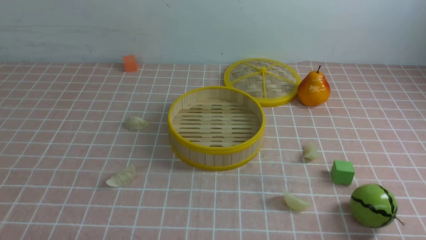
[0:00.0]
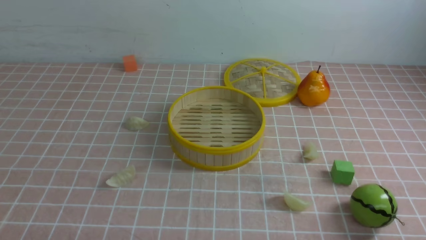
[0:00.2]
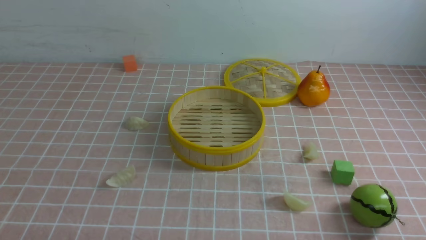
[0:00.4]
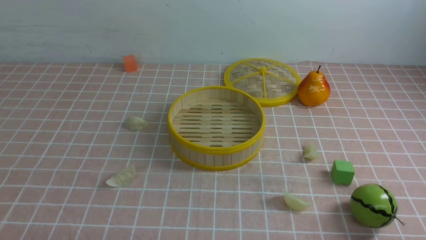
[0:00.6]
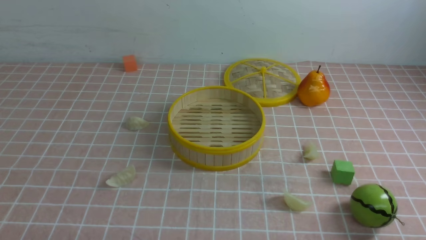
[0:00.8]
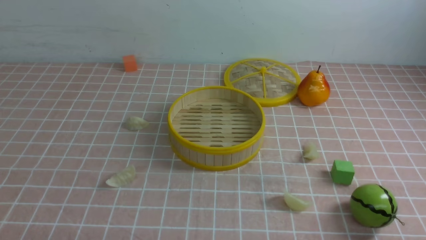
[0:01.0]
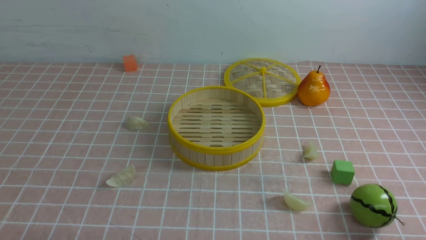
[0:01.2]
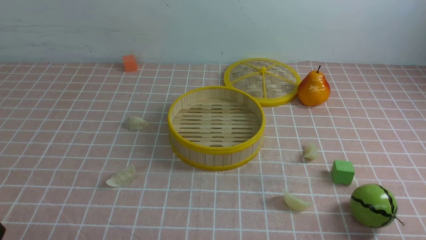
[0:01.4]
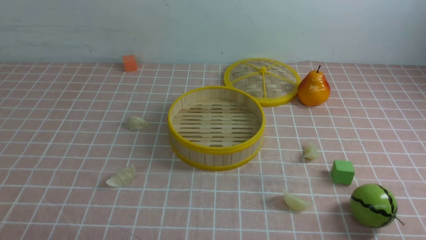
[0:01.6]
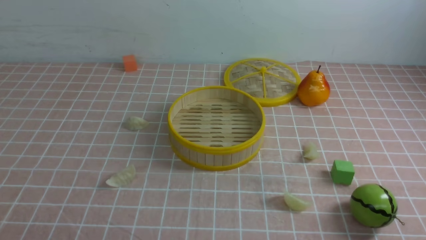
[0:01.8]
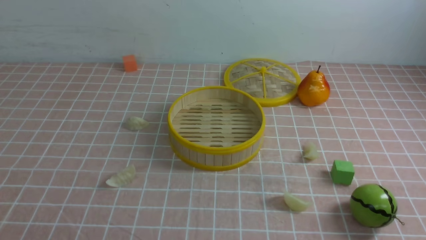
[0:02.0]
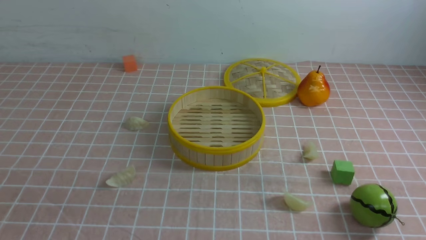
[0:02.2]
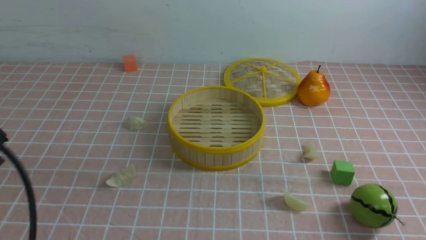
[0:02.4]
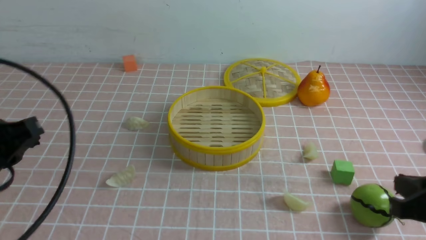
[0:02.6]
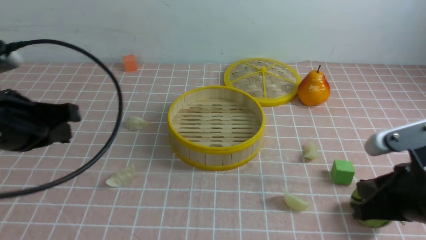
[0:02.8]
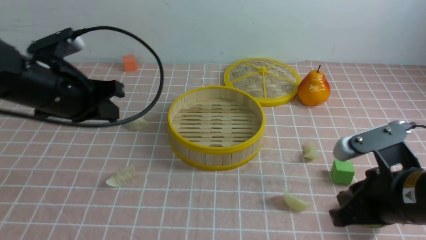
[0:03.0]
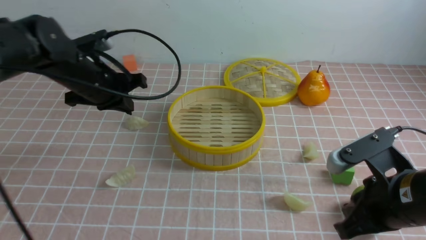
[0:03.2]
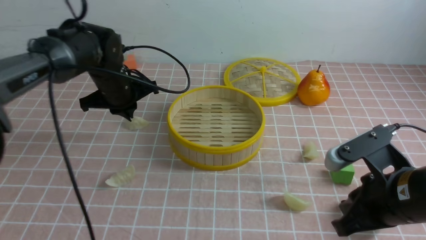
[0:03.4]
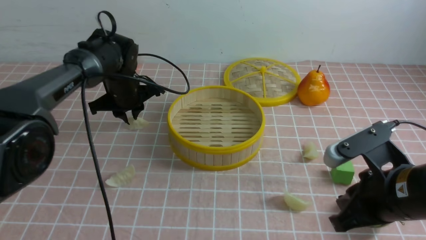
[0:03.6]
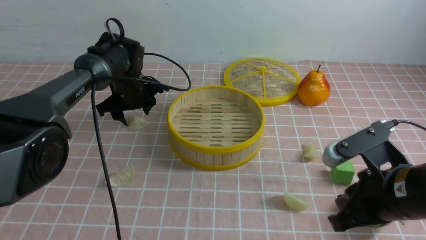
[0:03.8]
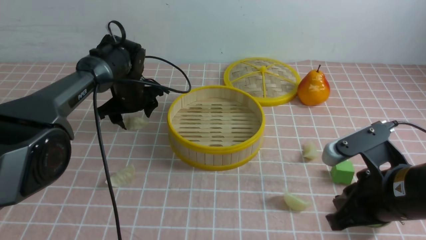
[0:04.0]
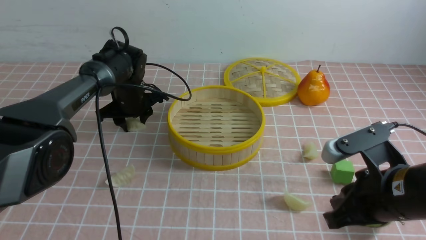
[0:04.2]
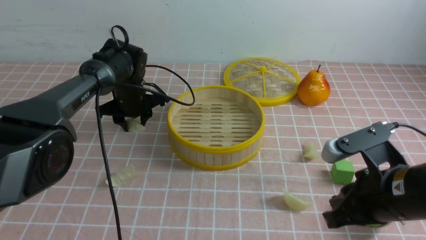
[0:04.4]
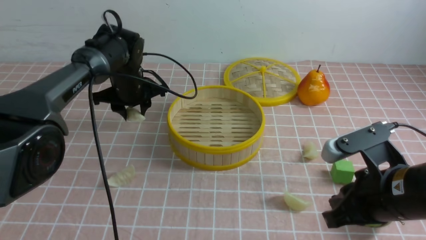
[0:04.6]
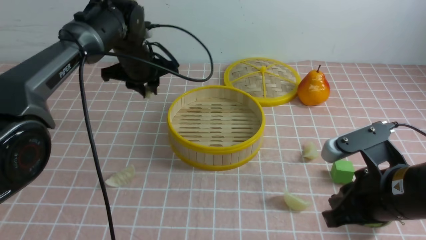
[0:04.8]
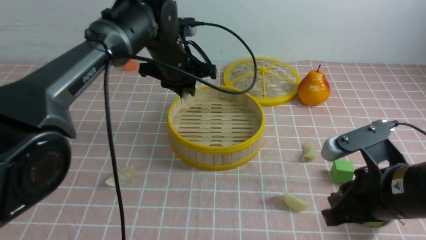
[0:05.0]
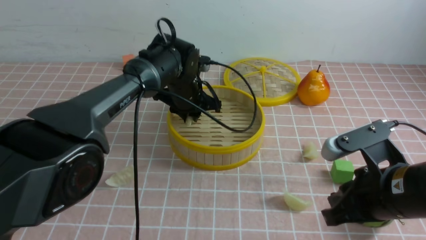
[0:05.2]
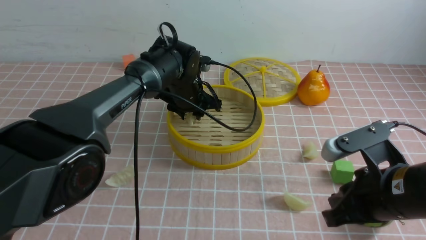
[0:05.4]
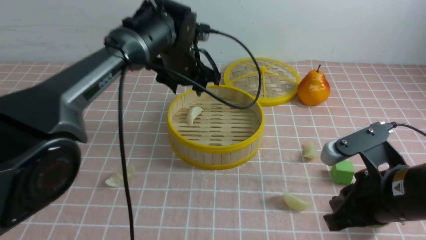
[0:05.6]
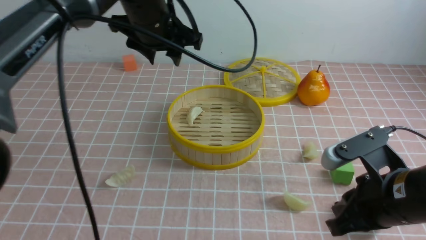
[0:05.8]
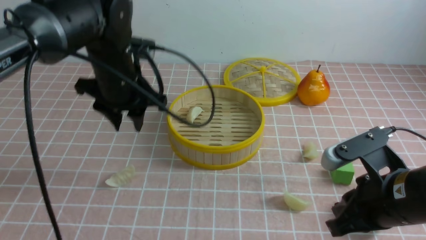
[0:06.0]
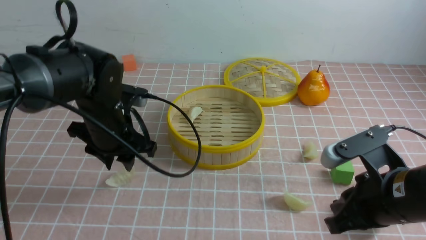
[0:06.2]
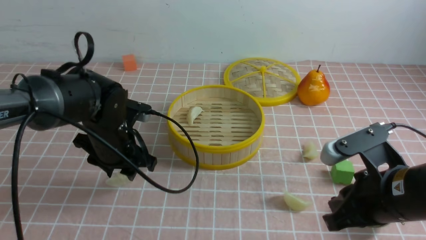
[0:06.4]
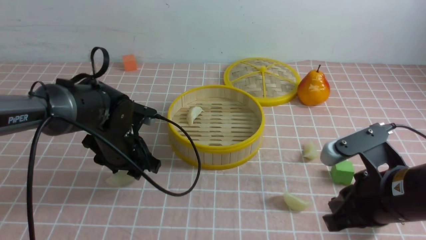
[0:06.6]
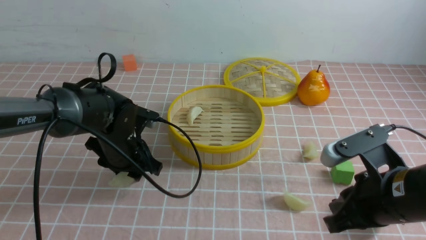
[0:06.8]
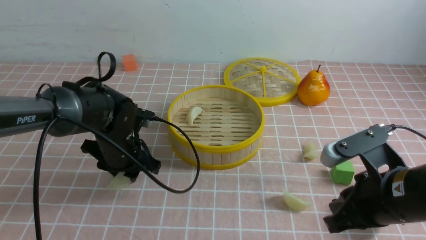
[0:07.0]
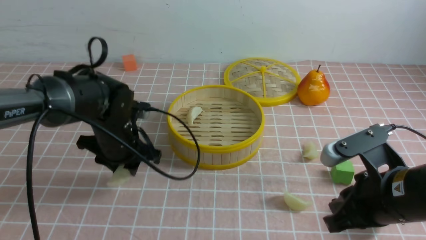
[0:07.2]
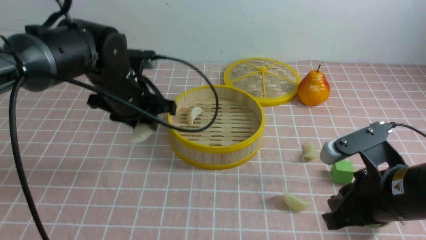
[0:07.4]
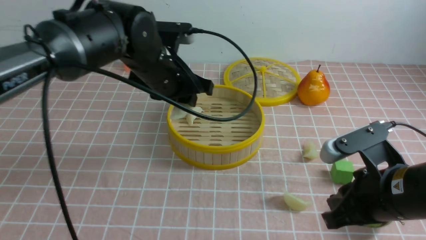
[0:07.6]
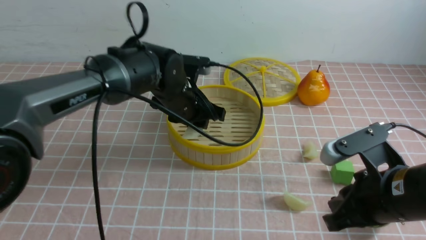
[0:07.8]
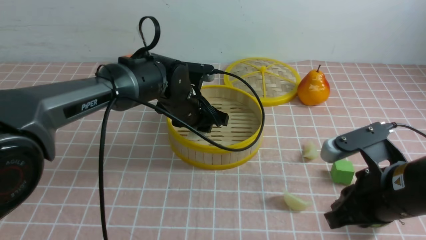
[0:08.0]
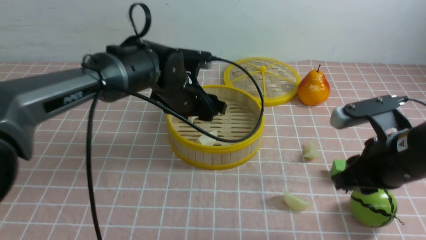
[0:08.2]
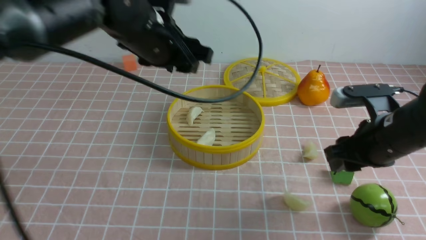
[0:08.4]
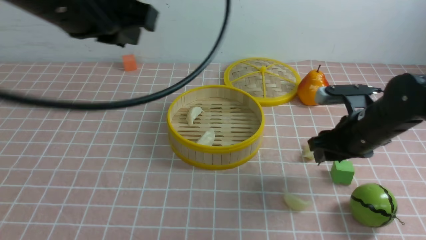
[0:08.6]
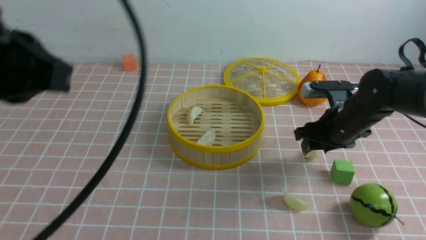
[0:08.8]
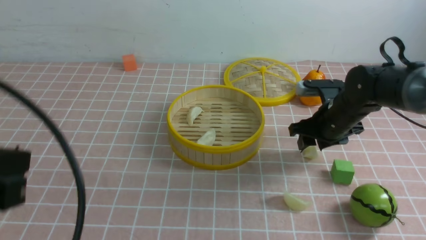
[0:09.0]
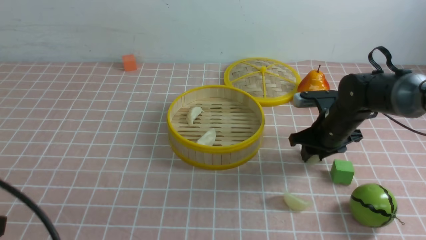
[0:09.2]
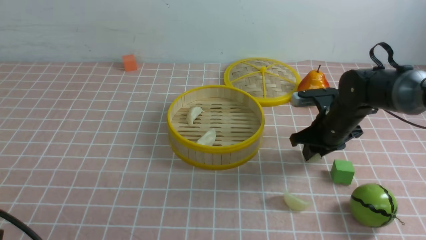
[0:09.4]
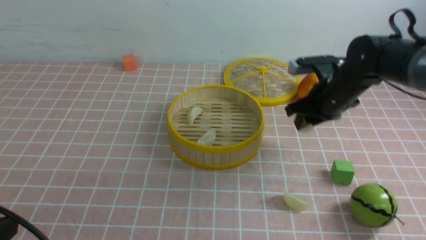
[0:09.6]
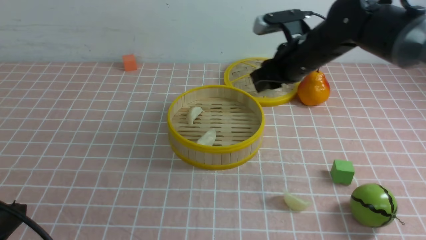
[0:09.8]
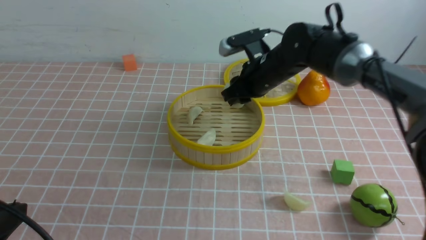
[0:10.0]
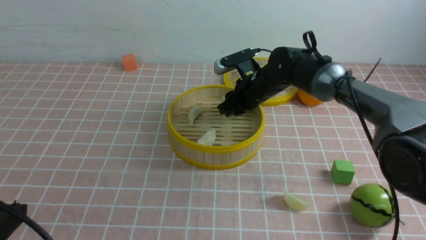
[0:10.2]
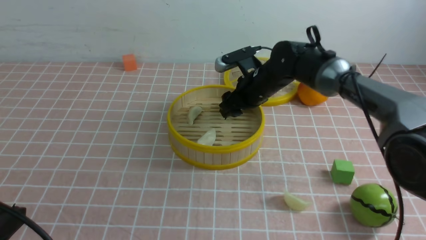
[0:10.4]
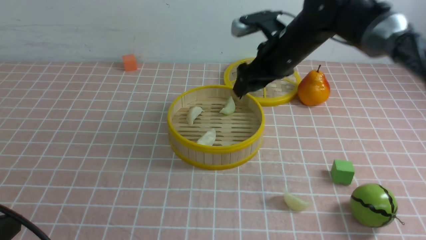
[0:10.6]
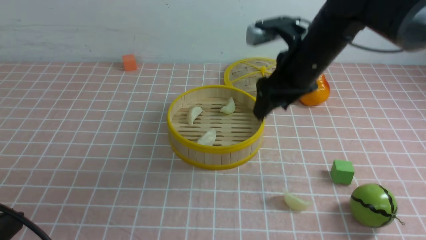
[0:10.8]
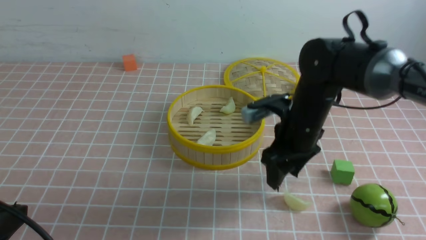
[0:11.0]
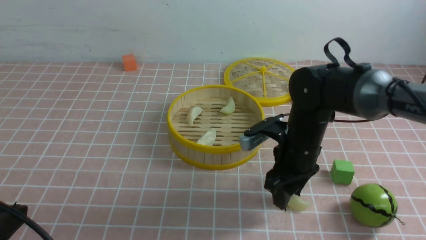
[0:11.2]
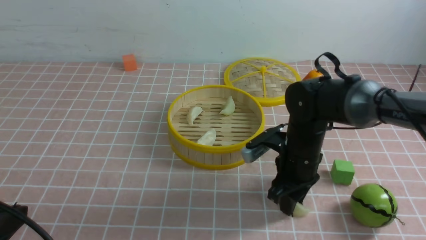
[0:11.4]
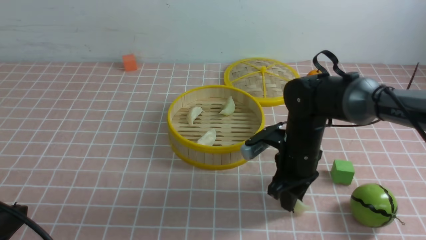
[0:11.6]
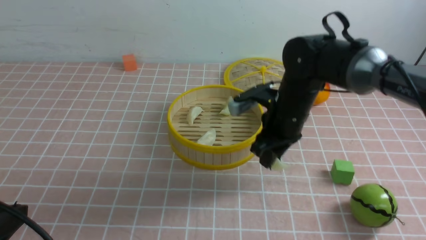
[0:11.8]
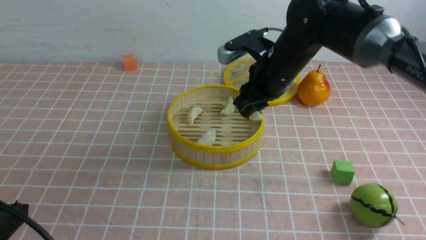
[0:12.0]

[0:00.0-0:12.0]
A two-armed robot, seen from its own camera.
Task of the whole recording: put the dumplings into the steamer on the table with the pink tablecloth.
Step, 0:00.0 to 0:04.4: use the left arm to grab a dumpling.
Step, 0:04.8 to 0:05.4: use the left arm to put the dumpling into the steamer.
Step, 0:05.6 to 0:07.2: use the left arm to grab a dumpling.
Step, 0:07.4 to 0:08.2: use the left arm to put the dumpling into the steamer.
Step, 0:08.4 to 0:09.4: use the right arm to grab a dumpling.
Step, 0:09.6 to 0:10.4: use the right arm to put the dumpling into the steamer.
Step, 0:10.8 to 0:11.6: use the right arm to grab a dumpling.
0:01.6 to 0:03.0: The right gripper shifts some 15 cm forward and to the left, and closes its fingers. The left gripper shifts roughly 30 cm forward.
0:03.0 to 0:04.4: The left gripper is displaced forward and downward by approximately 20 cm, and opens its fingers.
0:04.4 to 0:06.0: The left gripper shifts approximately 15 cm backward and upward, and closes and opens again.
0:06.0 to 0:07.6: The left gripper travels downward and back again, roughly 10 cm each way.
0:07.6 to 0:09.0: The right gripper heads forward, covering roughly 20 cm, and opens. Meanwhile the left gripper goes about 30 cm backward and to the left, and closes its fingers.
0:09.0 to 0:10.4: The right gripper goes roughly 15 cm to the left, upward and forward. Meanwhile the left gripper moves downward, roughly 10 cm.
0:10.4 to 0:12.0: The right gripper moves backward, about 5 cm, and closes up.

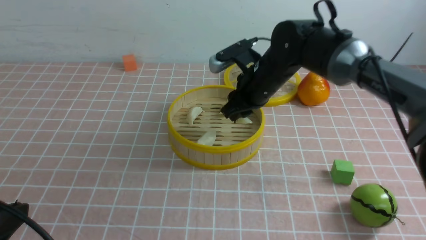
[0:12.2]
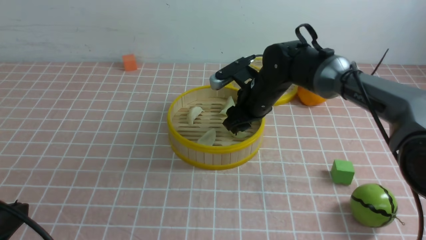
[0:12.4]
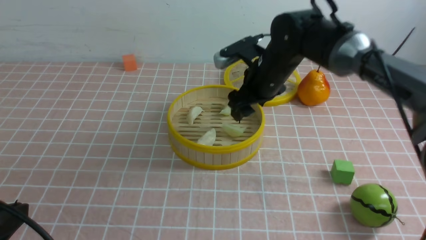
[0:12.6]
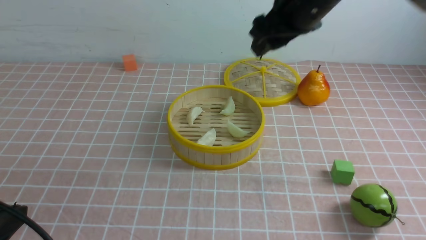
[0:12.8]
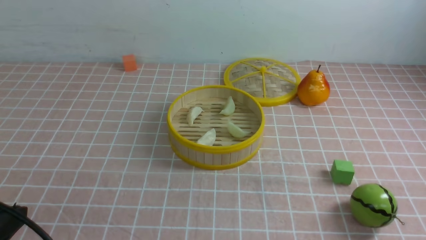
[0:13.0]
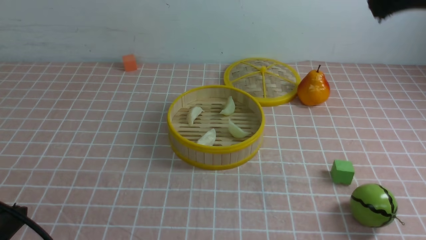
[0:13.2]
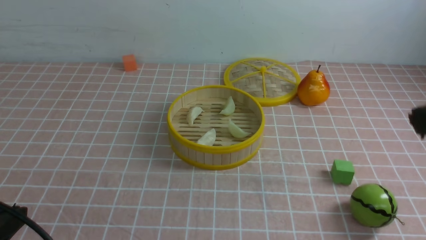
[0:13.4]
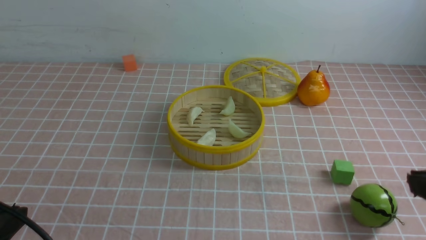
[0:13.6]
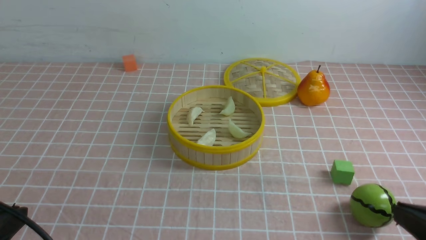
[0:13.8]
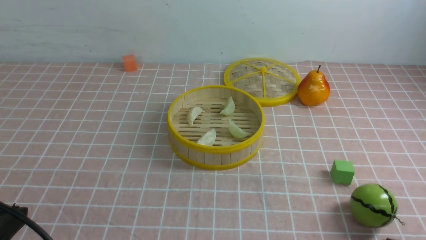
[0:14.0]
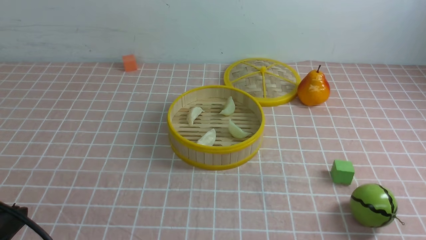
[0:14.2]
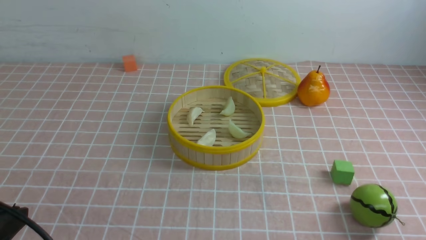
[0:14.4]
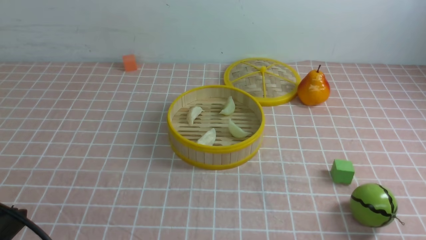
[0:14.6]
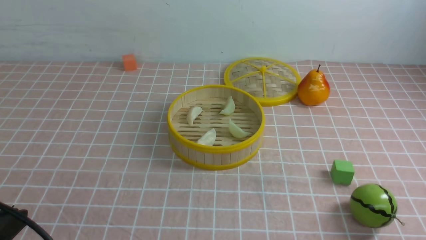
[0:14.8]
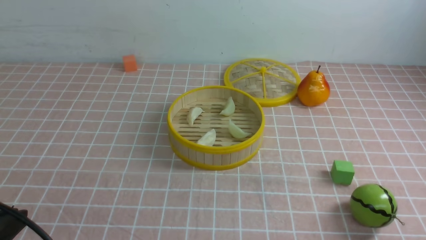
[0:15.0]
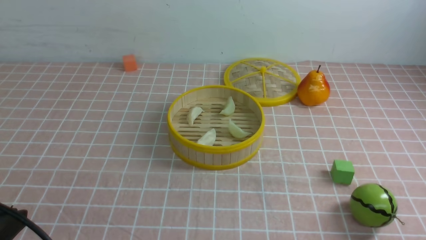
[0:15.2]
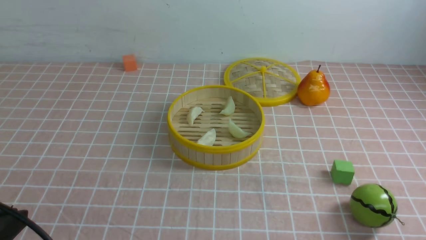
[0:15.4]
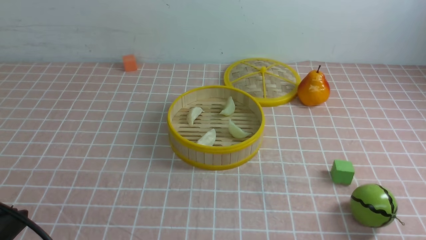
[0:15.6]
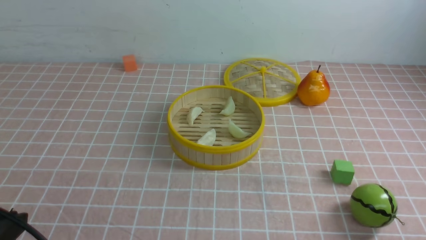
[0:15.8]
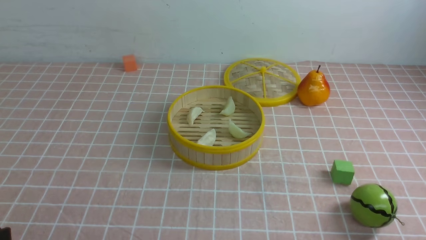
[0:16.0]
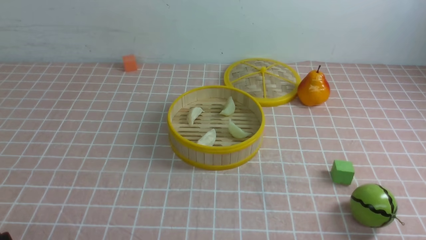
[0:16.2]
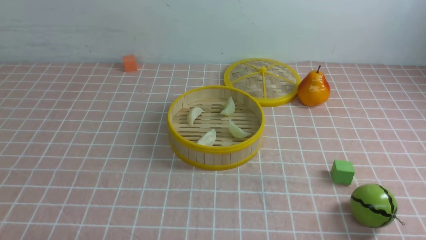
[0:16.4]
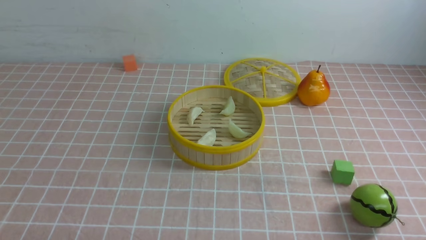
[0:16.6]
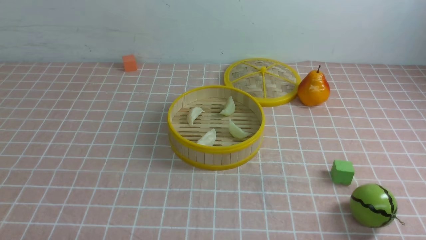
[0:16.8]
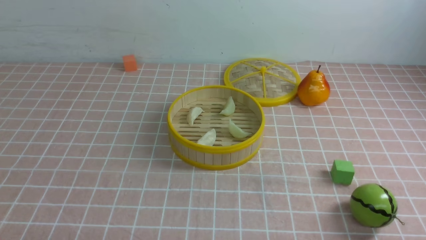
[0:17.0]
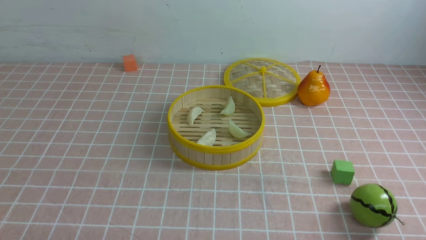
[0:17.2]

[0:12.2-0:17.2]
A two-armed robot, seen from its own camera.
Task of the whole recording: put the dumplings into the steamer on the table with the pink tablecloth.
0:12.2 to 0:13.8: The right gripper is displaced backward and to the right by about 40 cm, and closes its fingers.
0:13.8 to 0:15.6: The right gripper heads downward, covering some 10 cm.
0:15.6 to 0:17.2: The left gripper shifts approximately 10 cm downward.
